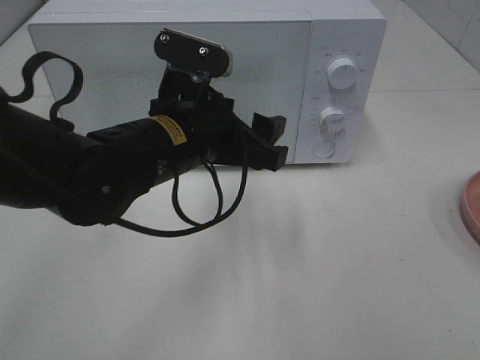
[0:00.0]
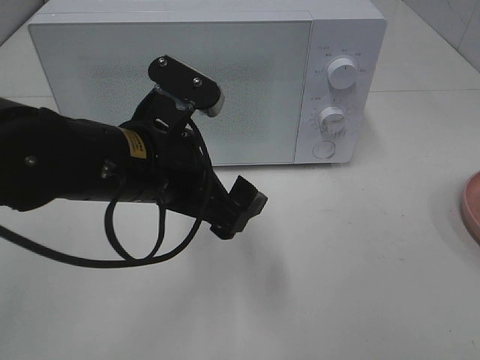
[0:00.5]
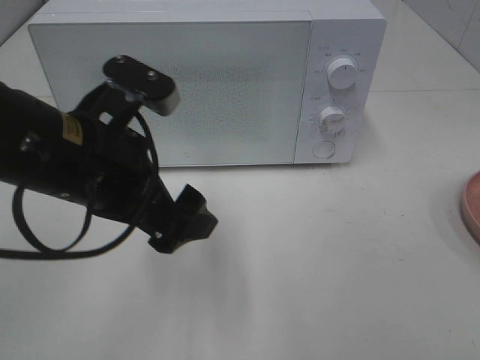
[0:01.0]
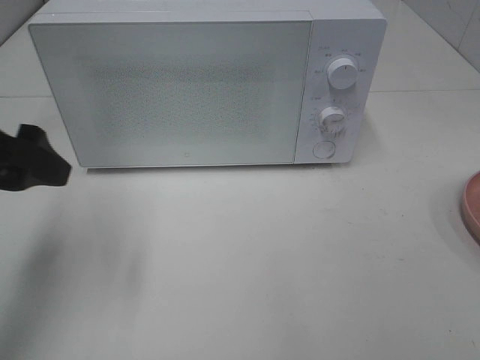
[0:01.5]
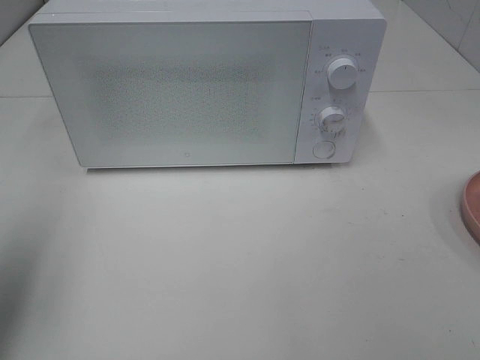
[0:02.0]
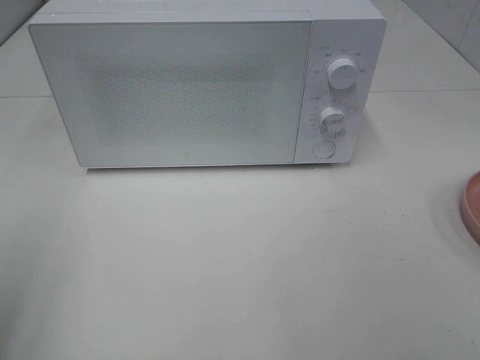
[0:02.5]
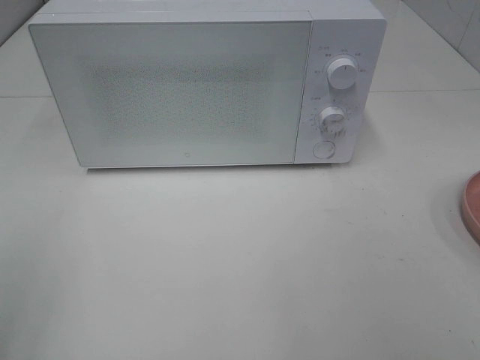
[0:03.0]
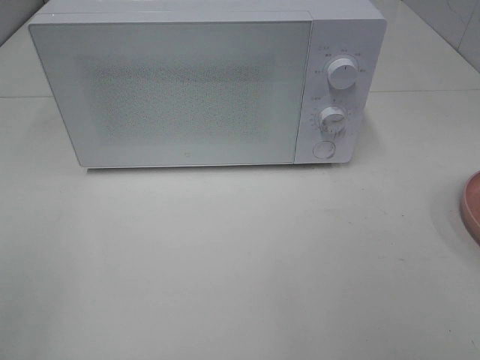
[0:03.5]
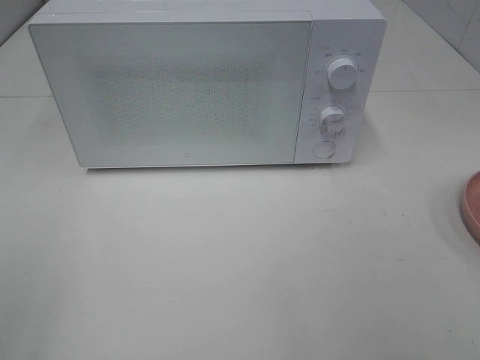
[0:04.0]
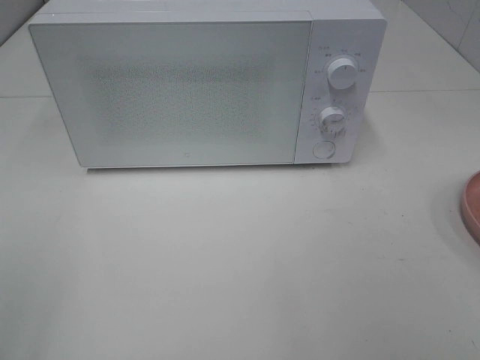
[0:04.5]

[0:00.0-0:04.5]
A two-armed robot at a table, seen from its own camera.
Task of the whole recording: Heat Sandwich.
0:00.0 to 0:02.0: The left gripper goes roughly 30 cm to the left and upward.
0:02.0 to 0:04.5: The left gripper shifts roughly 15 cm backward.

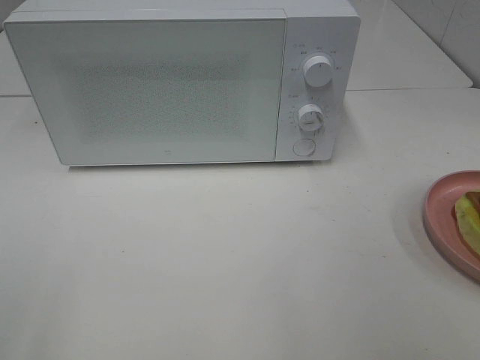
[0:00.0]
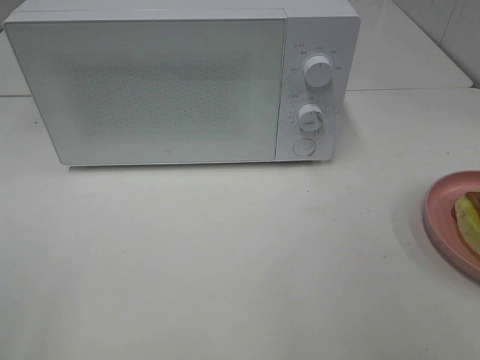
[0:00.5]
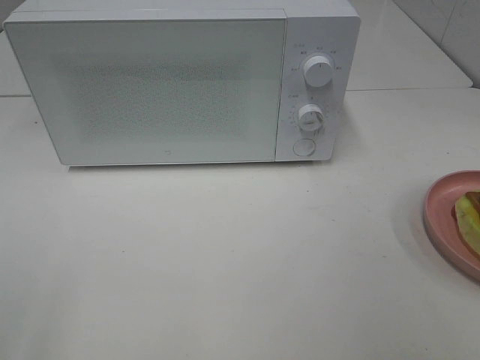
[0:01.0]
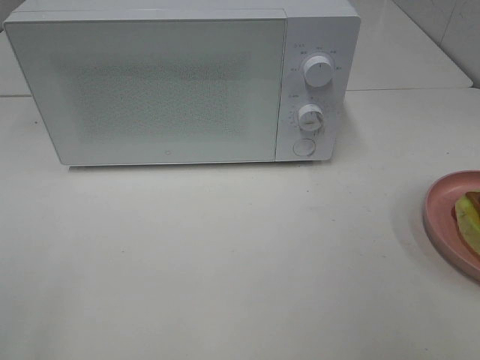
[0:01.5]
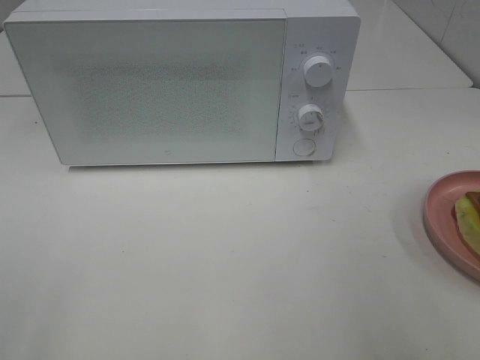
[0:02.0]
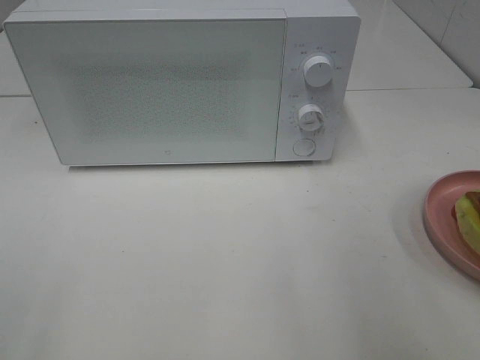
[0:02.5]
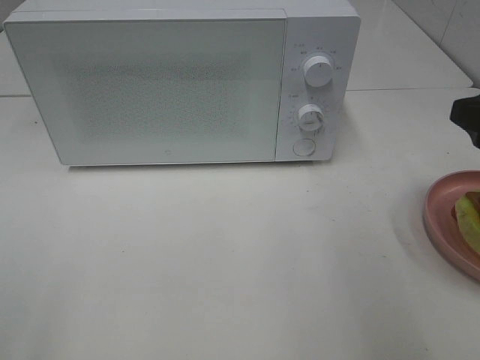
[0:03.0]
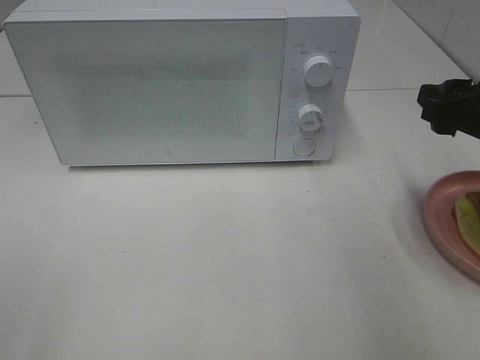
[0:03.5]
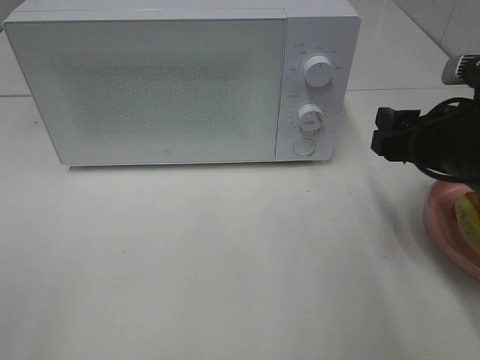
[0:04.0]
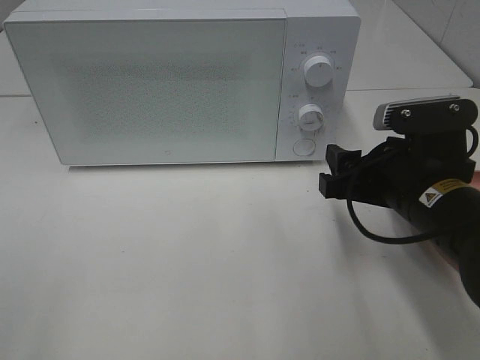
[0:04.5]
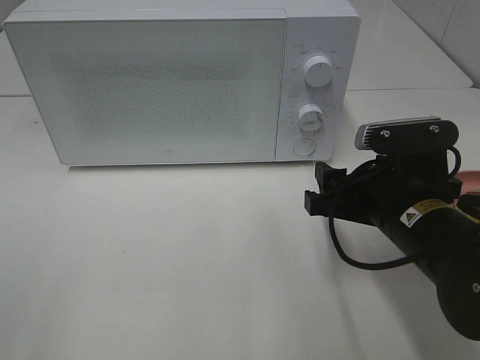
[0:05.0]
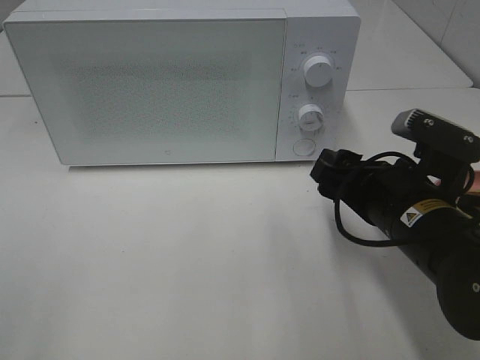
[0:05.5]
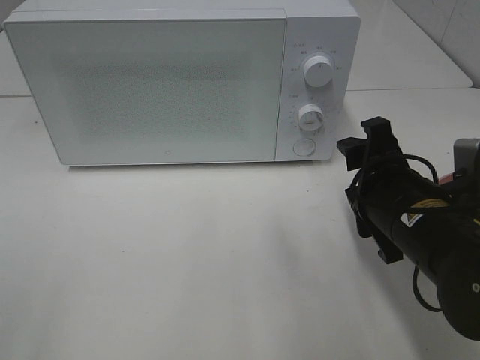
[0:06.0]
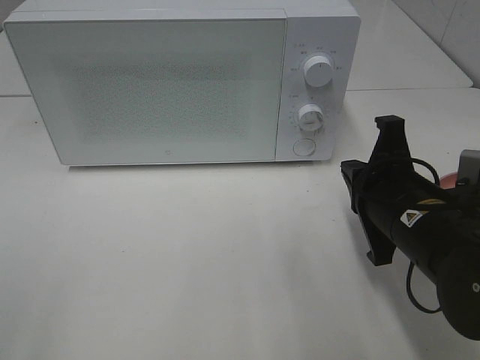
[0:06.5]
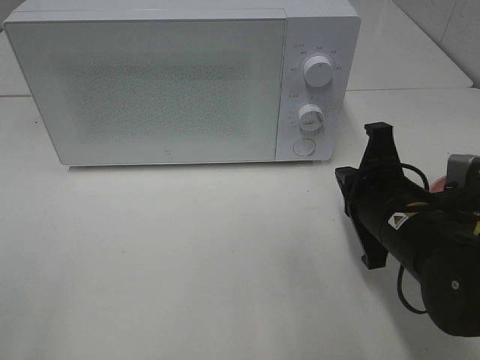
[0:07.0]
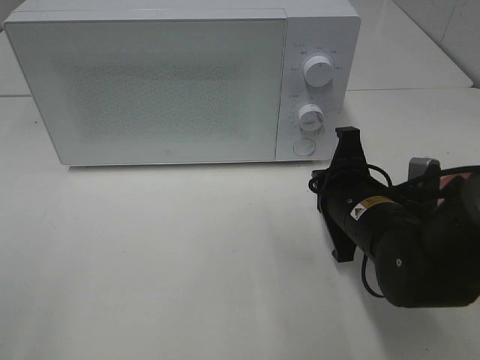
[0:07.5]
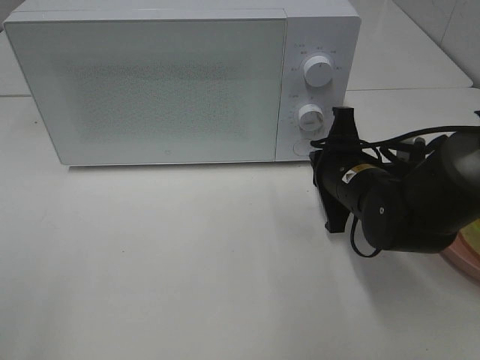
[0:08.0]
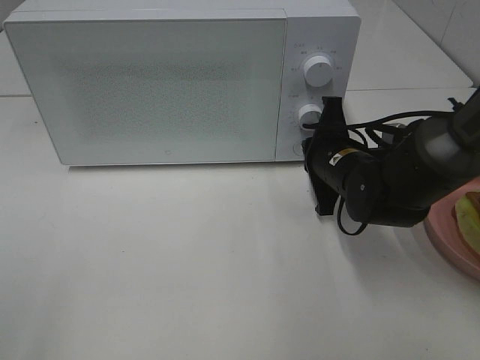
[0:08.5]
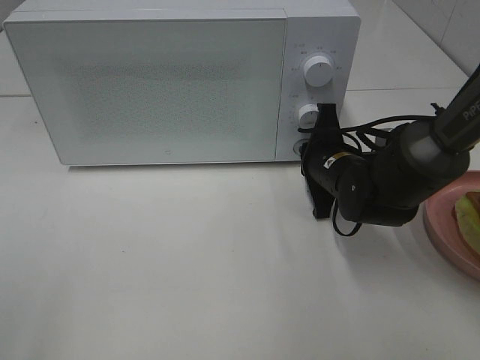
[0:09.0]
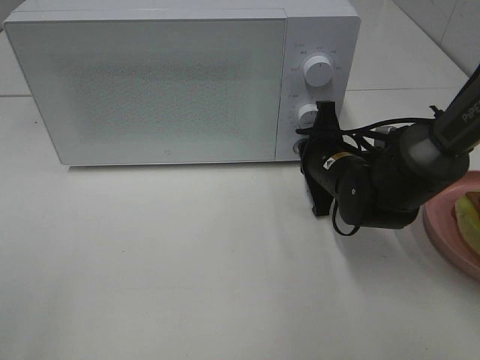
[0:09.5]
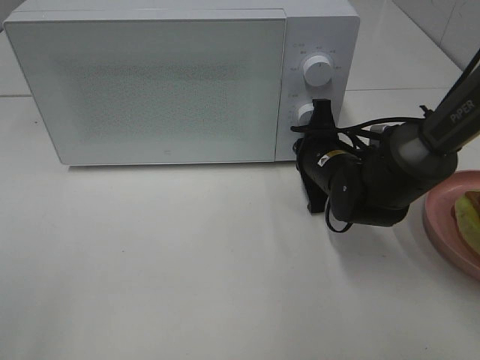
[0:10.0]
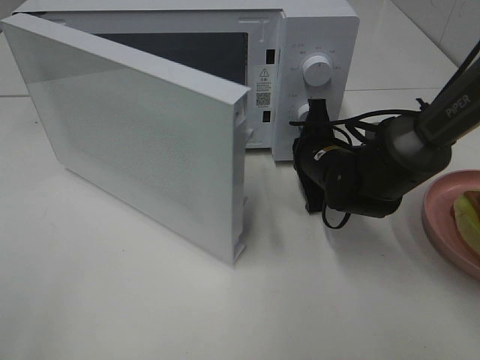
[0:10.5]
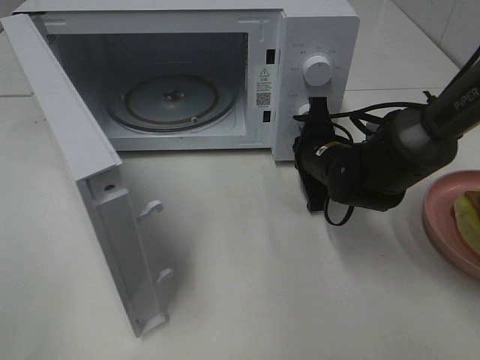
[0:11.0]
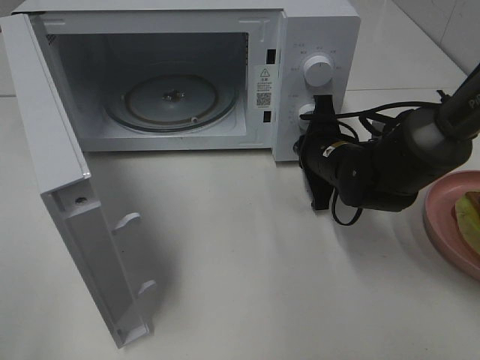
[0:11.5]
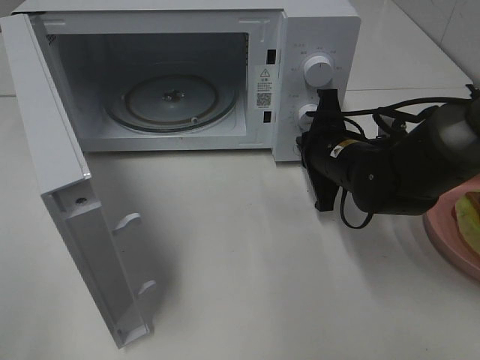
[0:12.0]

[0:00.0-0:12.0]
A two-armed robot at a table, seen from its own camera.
Task of the whole recording: Heat Sandwich.
0:02.0 to 0:04.0: The right gripper moves forward and downward, roughly 20 cm.
0:04.0 to 0:06.0: The right gripper is displaced to the left by approximately 5 cm.
0:06.0 to 0:08.0: The right gripper shifts approximately 10 cm forward, and closes.
0:08.0 to 0:10.0: The right gripper shifts roughly 5 cm forward.

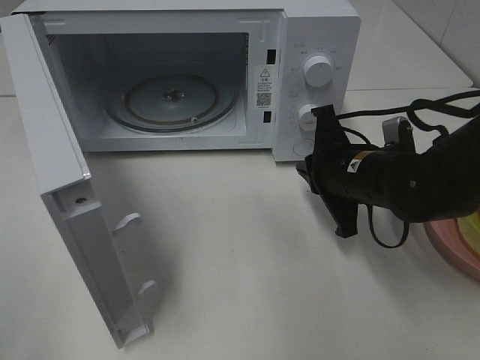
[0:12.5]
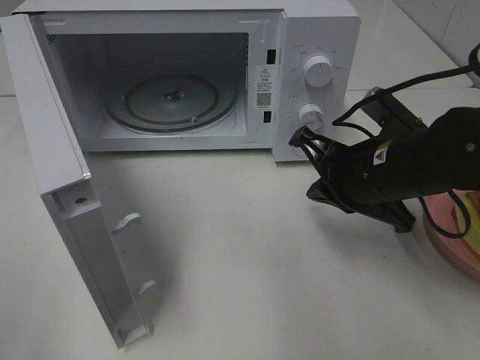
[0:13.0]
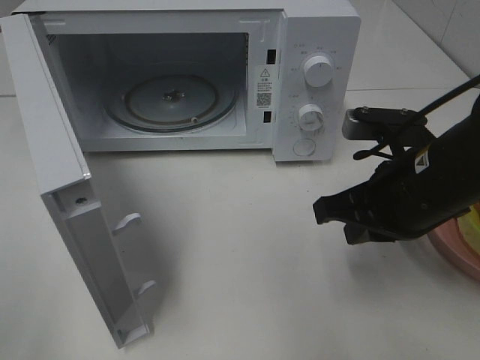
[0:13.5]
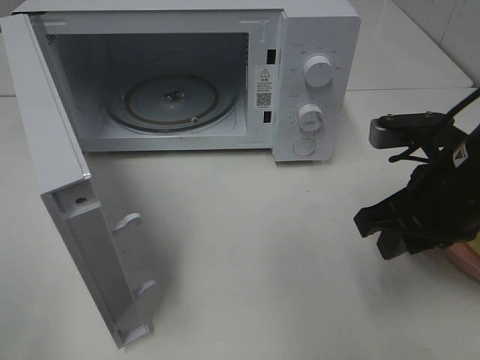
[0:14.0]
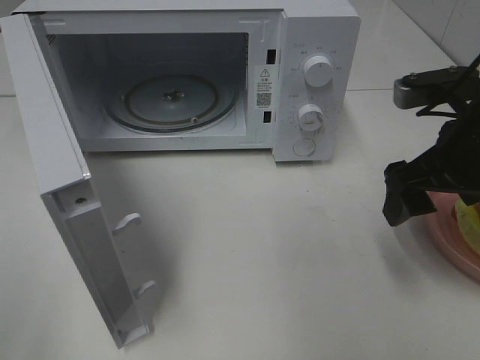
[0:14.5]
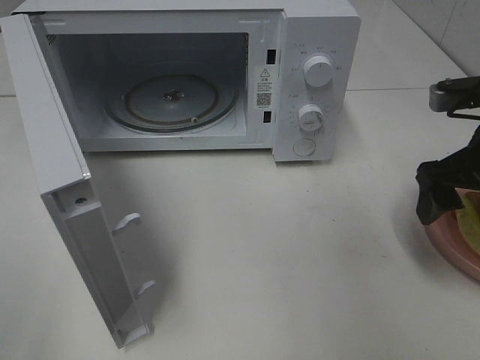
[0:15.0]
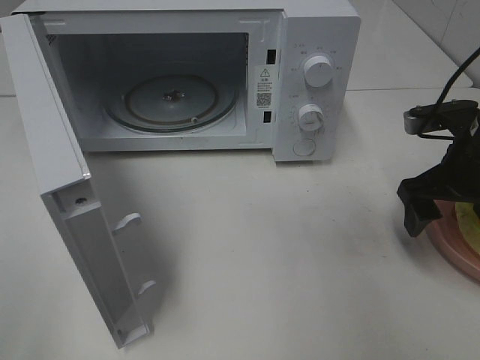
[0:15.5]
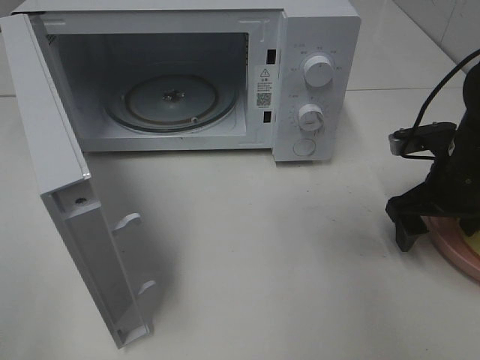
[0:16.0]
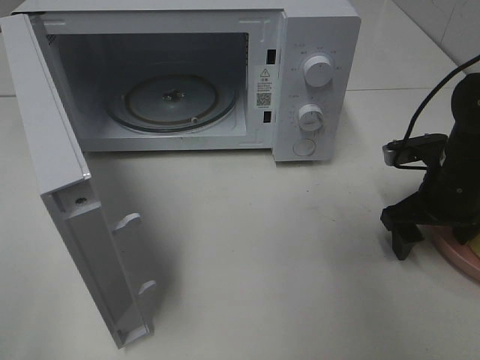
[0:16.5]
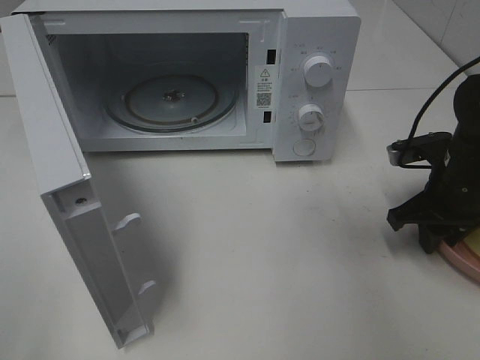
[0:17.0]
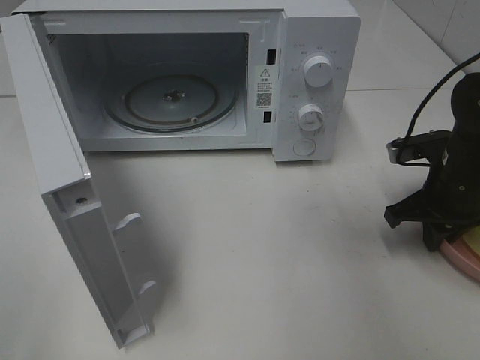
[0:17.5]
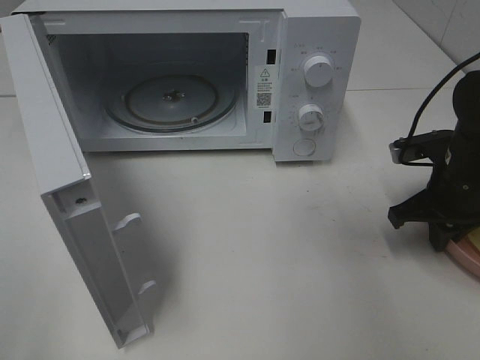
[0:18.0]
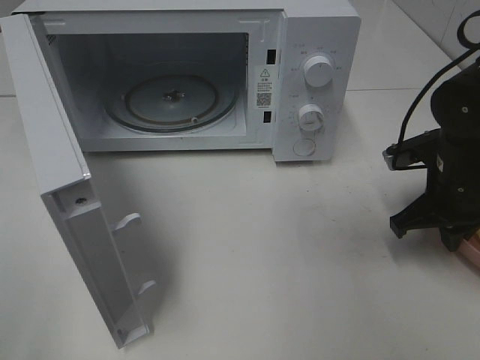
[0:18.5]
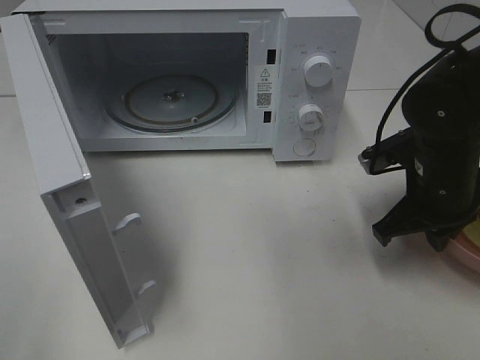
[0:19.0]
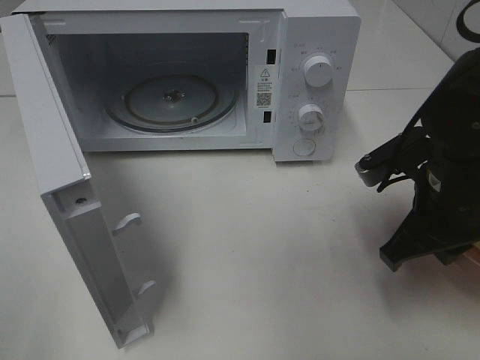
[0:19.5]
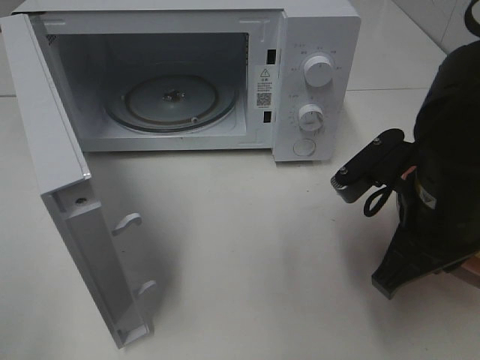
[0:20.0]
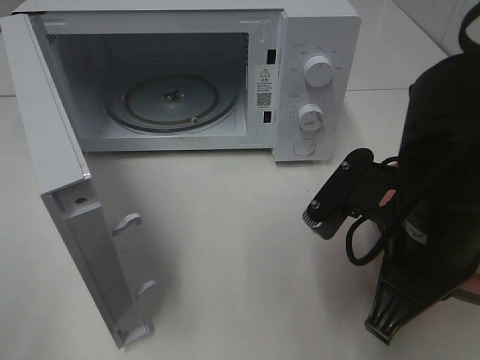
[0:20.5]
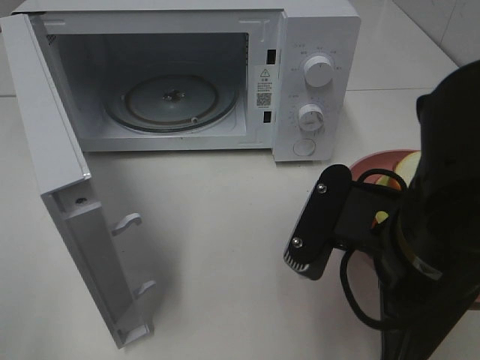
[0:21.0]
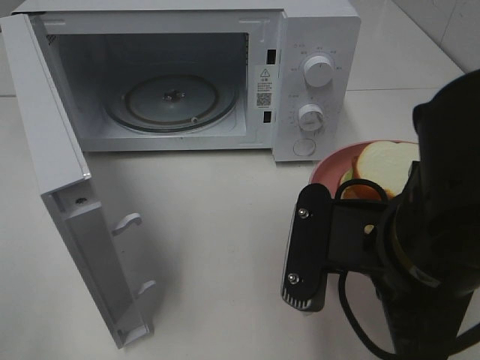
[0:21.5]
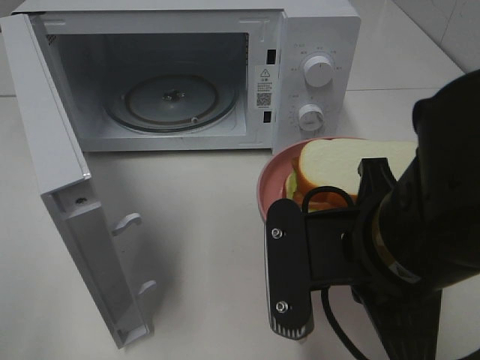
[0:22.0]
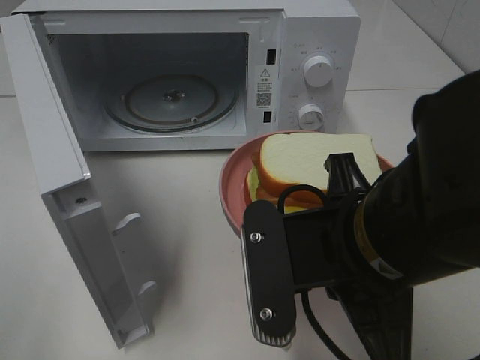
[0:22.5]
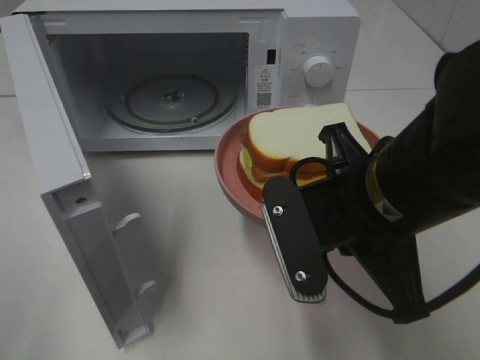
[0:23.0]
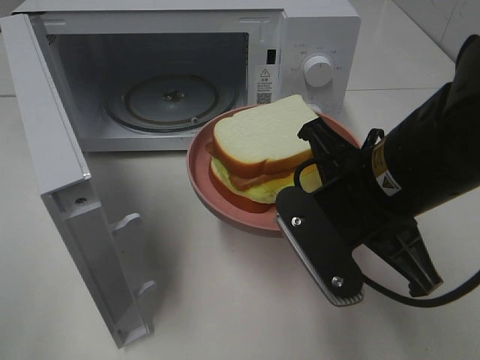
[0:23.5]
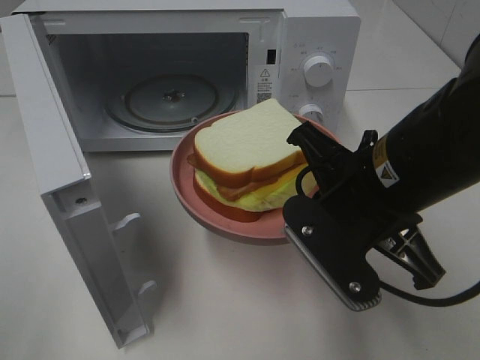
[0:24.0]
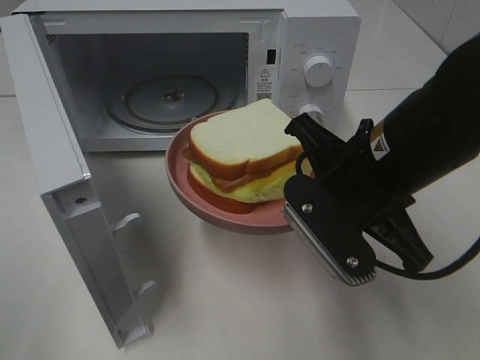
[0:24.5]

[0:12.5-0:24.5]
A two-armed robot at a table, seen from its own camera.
Task of the whole recording: Heat Sandwich.
Step, 0:12.5 to 0:17.0: Right hand: grab the plate with the sandwich.
0:12.5 to 0:14.5: The right gripper travels upward and to the right by about 10 cm, and opens.
0:14.5 to 0:16.5: The right gripper is displaced downward and forward by some 10 cm.
0:16.5 to 0:18.5: The right gripper closes.
0:18.5 to 0:20.5: The right gripper is displaced backward, to the left and upward by roughly 20 cm.
0:20.5 to 0:22.5: The right gripper moves roughly 5 cm.
0:22.5 to 0:24.5: The right gripper moves forward, approximately 10 cm.
